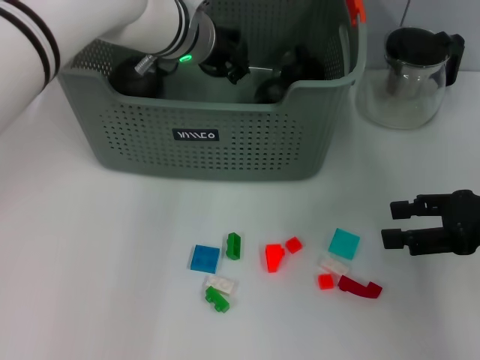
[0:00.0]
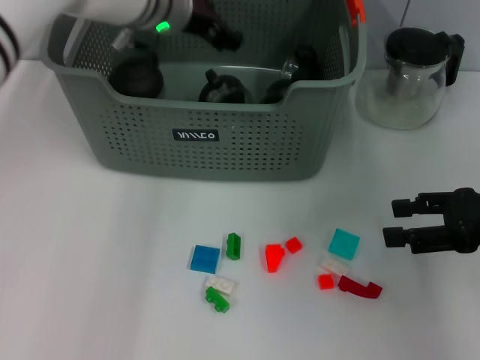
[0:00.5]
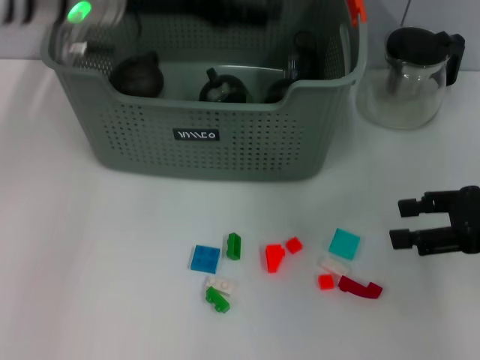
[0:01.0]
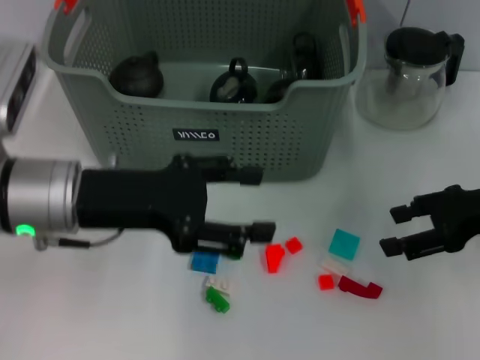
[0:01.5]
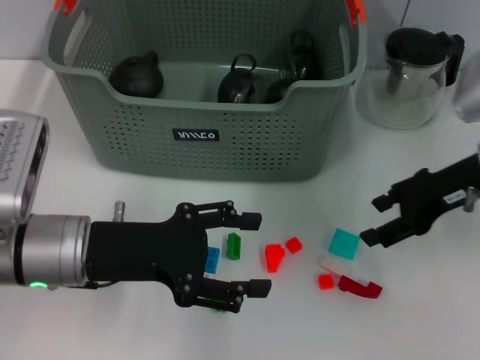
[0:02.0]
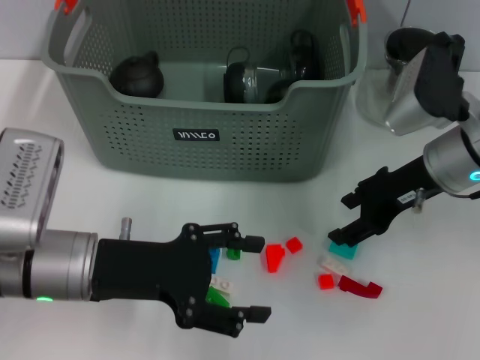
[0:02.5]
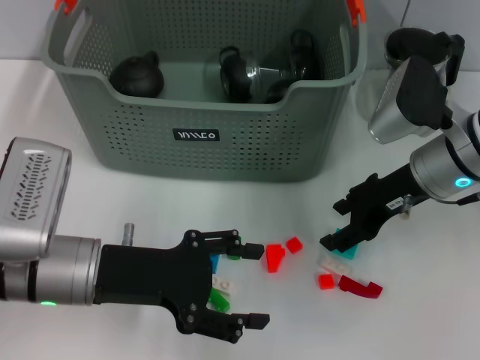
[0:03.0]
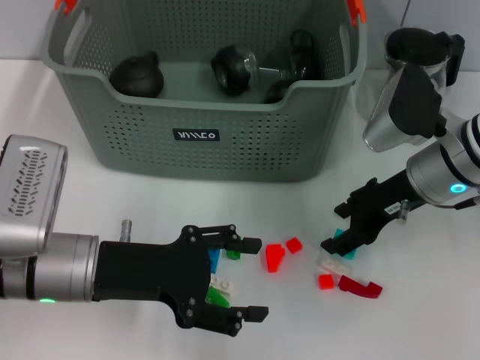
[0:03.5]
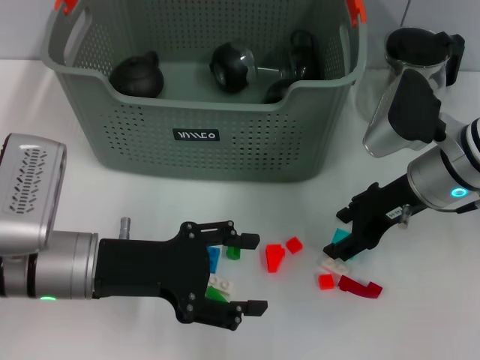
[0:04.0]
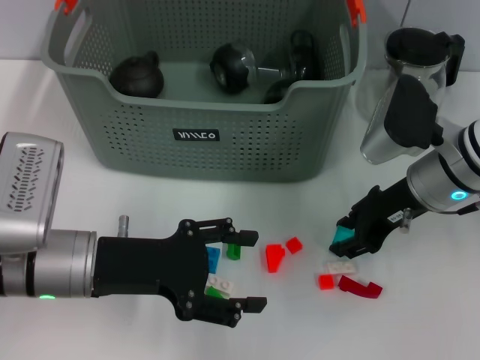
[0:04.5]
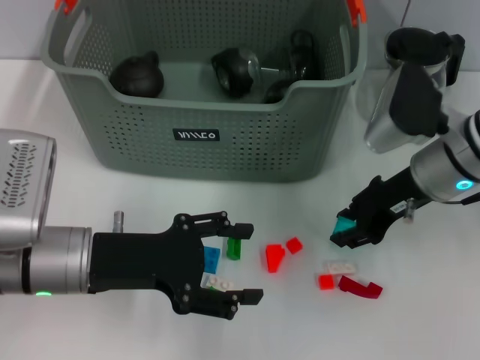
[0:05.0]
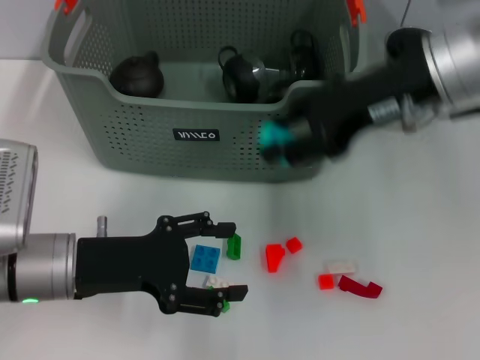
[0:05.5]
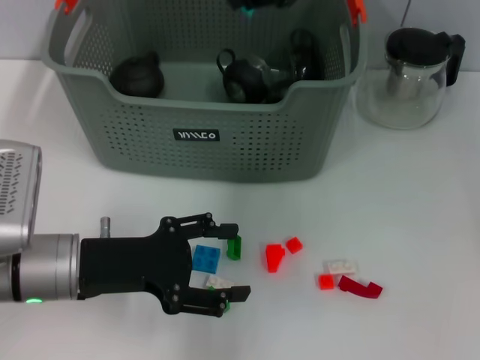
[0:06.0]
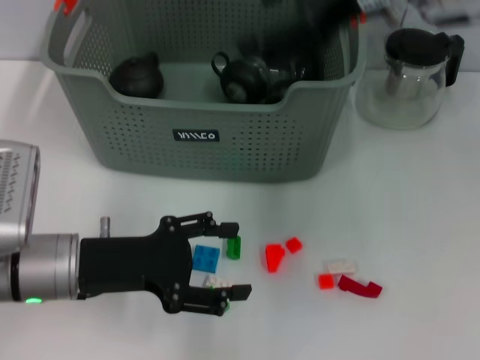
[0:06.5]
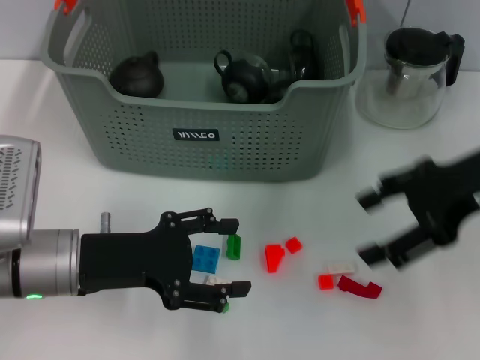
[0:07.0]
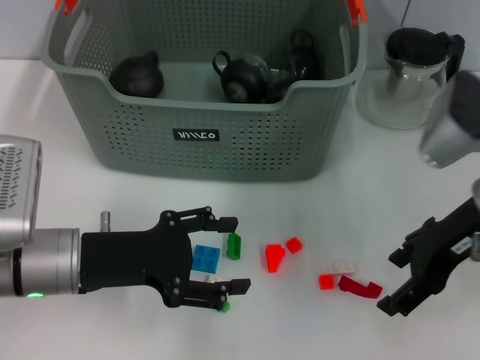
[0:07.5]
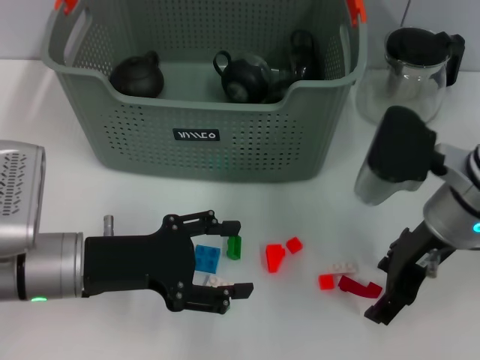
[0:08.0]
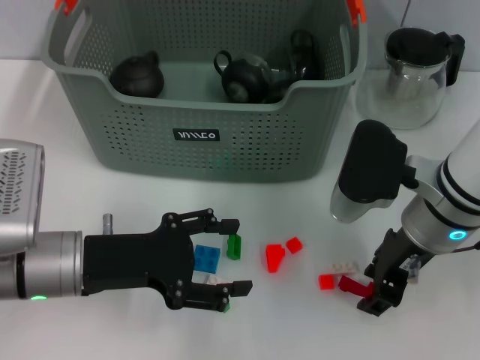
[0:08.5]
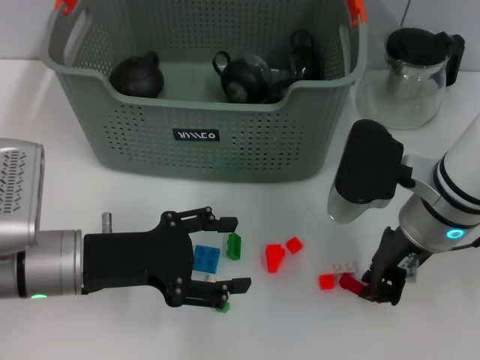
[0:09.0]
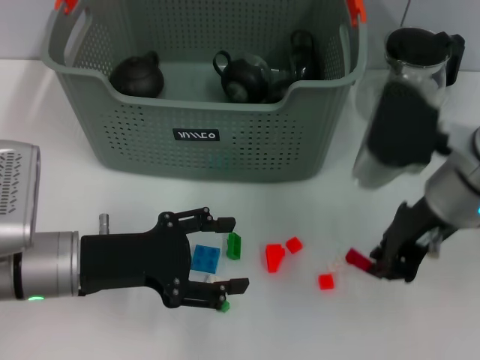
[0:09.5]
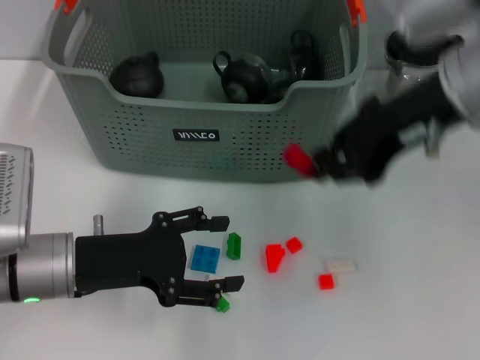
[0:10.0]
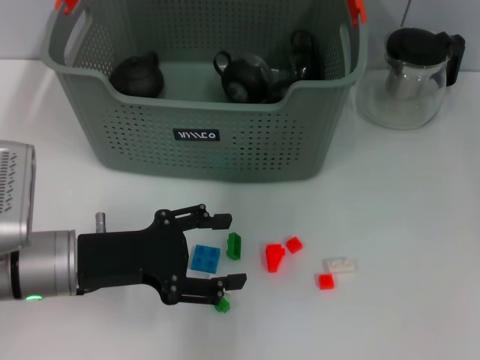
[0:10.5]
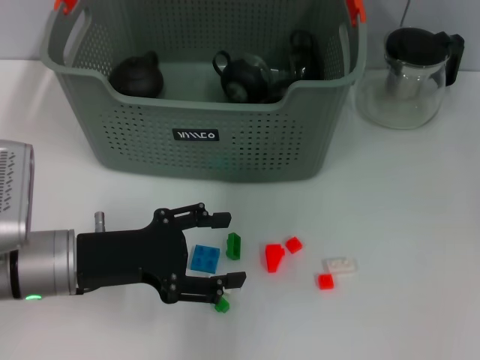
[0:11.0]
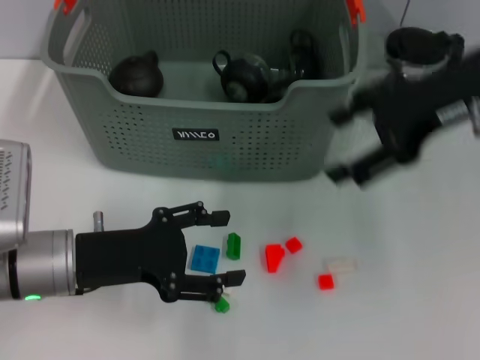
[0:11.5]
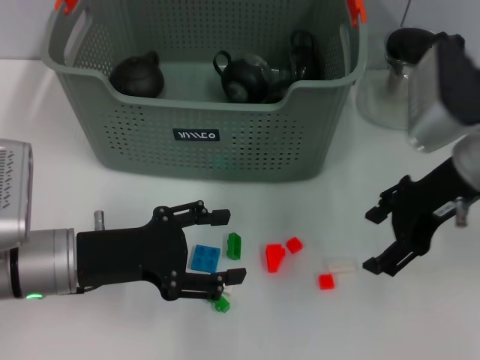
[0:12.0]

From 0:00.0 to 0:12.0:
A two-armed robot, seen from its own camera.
Task of the whole recording: pick up the teacup on the table and place it into the storage bin, pick up the block on the table and place it into the storage bin.
Step, from 0:01.0 to 0:04.5: Grasp the light blue block with right gripper.
Step, from 0:05.0 to 0:06.0: Place the light blue block in the storage box with right gripper.
Step, from 0:06.5 to 0:09.0: Grasp the red block with right gripper.
Step, from 0:09.5 to 0:10.5: Place the red block in the storage box with right gripper.
From 0:00.0 to 0:02.0: The right gripper moves forward and to the left, roughly 10 cm, while the left gripper goes roughly 25 cm backward and to the left, and opens up.
From 0:02.0 to 0:04.0: The right gripper shifts about 5 cm to the left.
From 0:04.0 to 0:06.0: The right gripper shifts some 20 cm upward, and closes its fingers.
From 0:06.0 to 0:08.0: The right gripper heads downward and backward, covering roughly 20 cm, and opens.
From 0:08.0 to 0:10.0: The right gripper shifts some 15 cm upward, and closes.
From 0:10.0 to 0:12.0: The right gripper shifts roughly 10 cm downward, and opens up.

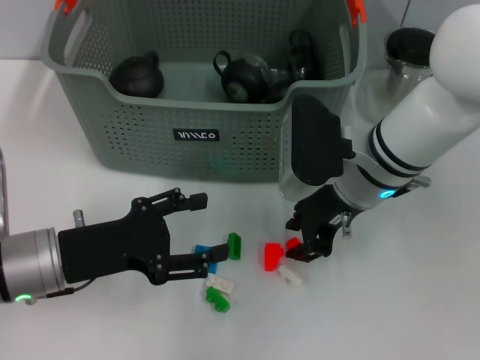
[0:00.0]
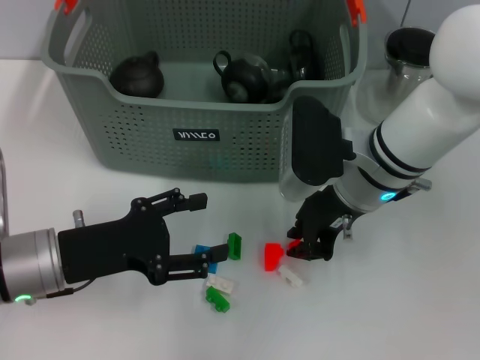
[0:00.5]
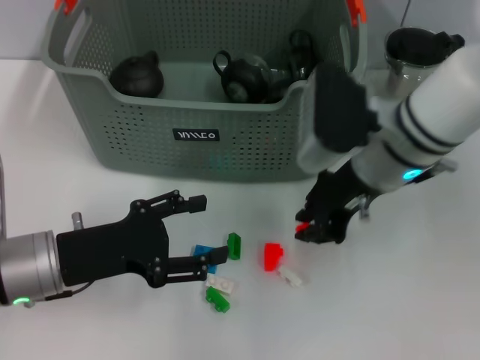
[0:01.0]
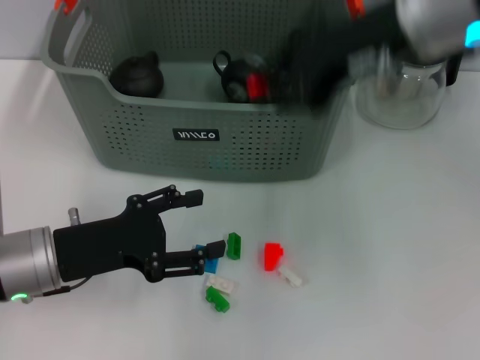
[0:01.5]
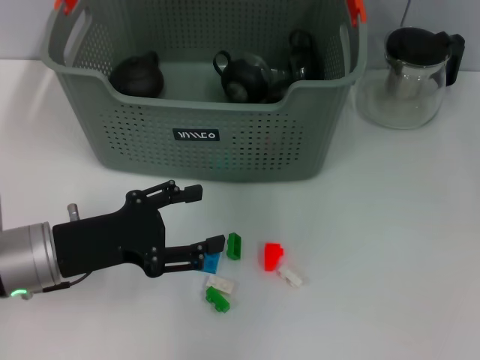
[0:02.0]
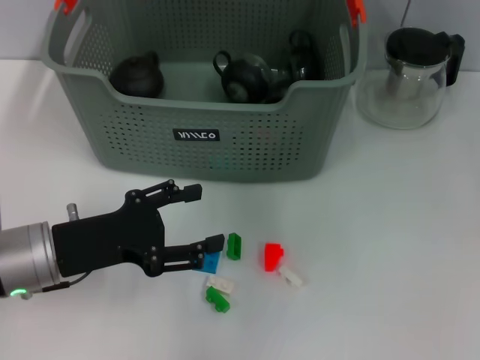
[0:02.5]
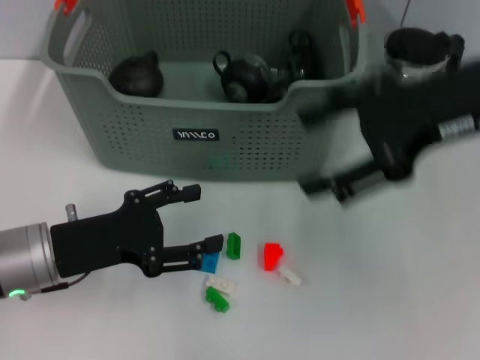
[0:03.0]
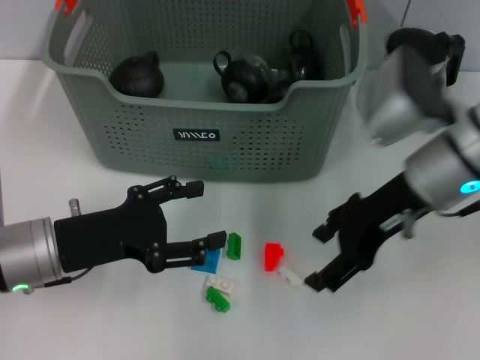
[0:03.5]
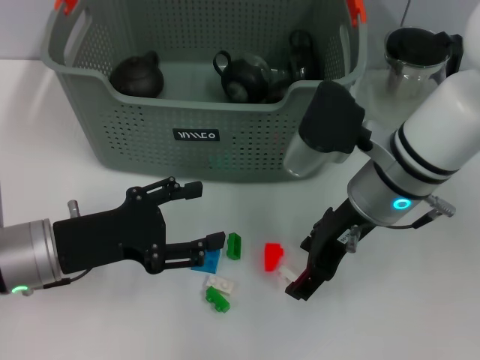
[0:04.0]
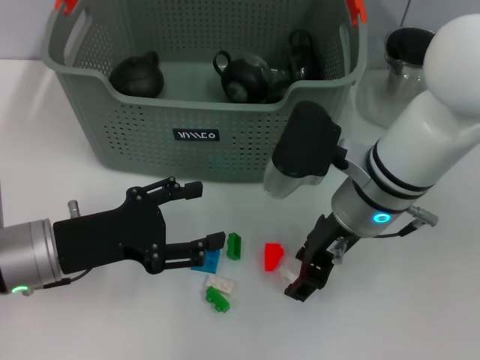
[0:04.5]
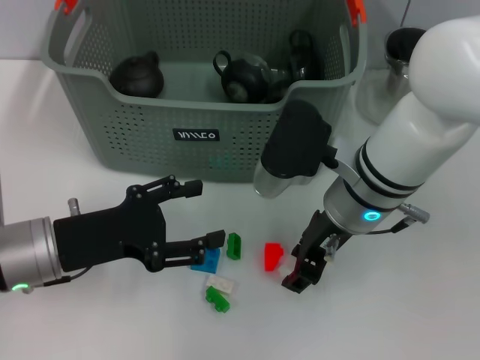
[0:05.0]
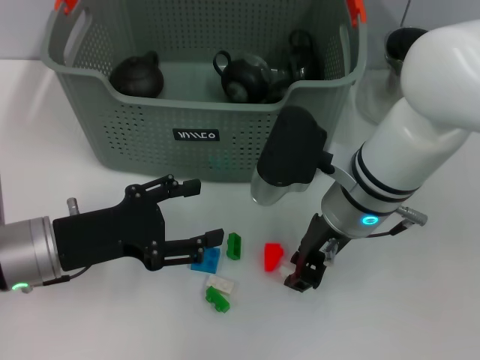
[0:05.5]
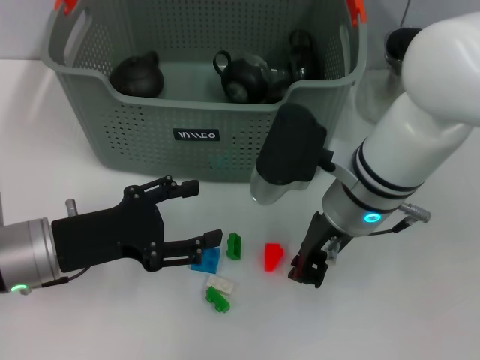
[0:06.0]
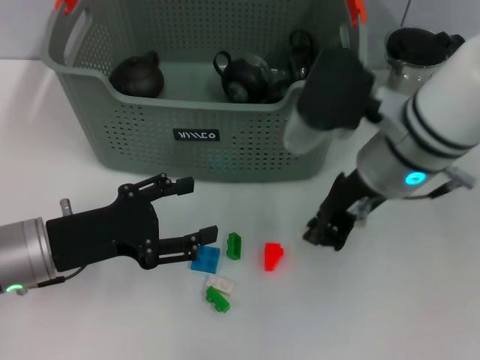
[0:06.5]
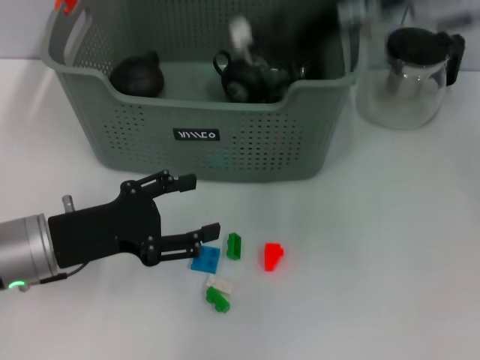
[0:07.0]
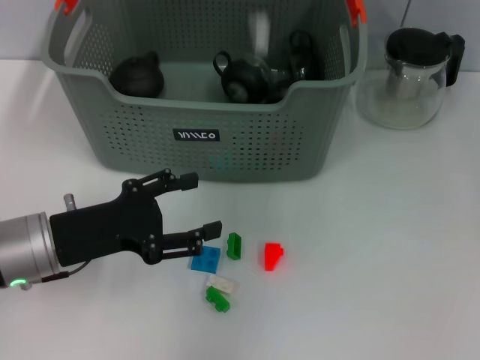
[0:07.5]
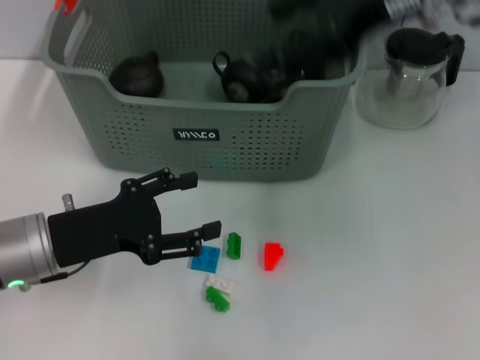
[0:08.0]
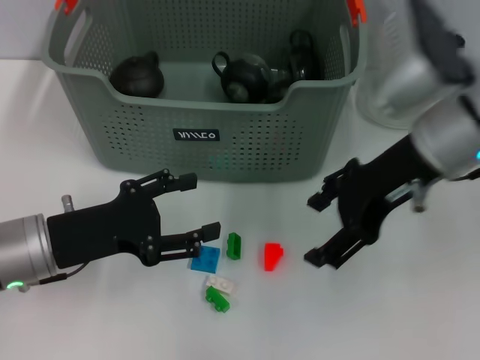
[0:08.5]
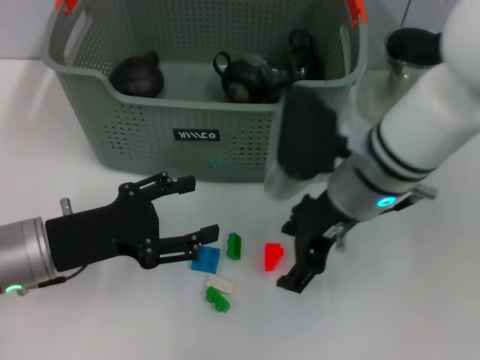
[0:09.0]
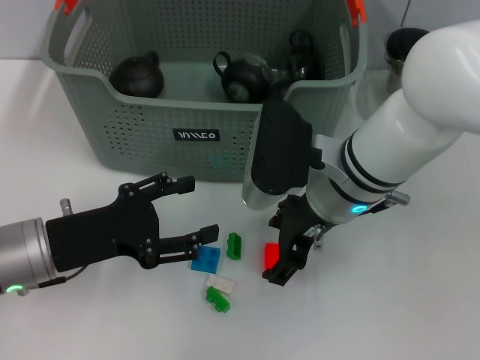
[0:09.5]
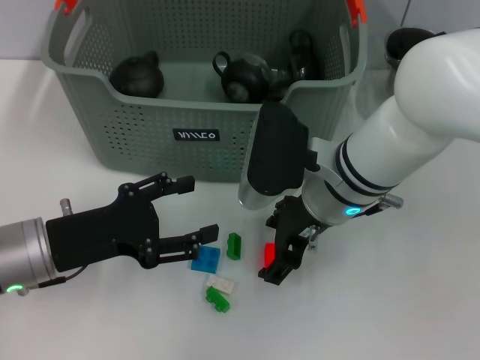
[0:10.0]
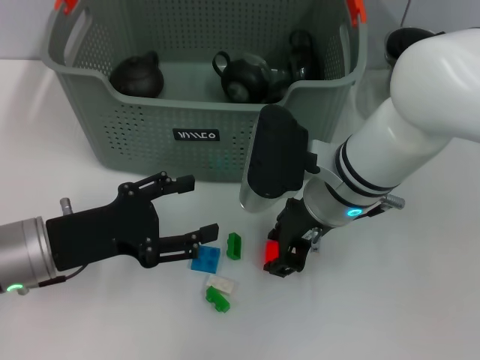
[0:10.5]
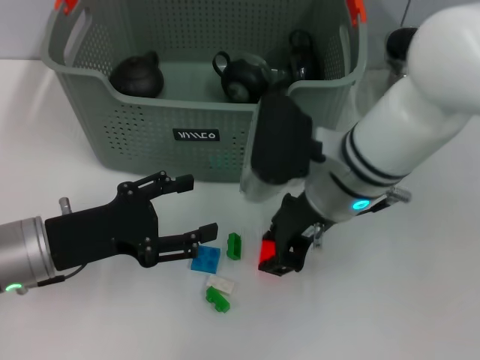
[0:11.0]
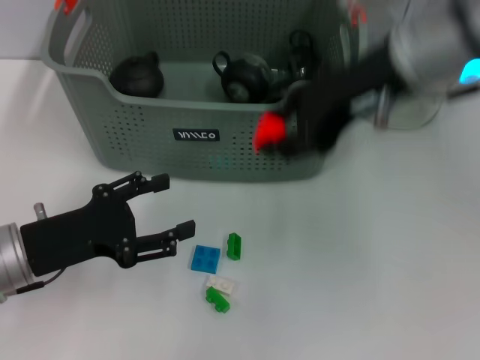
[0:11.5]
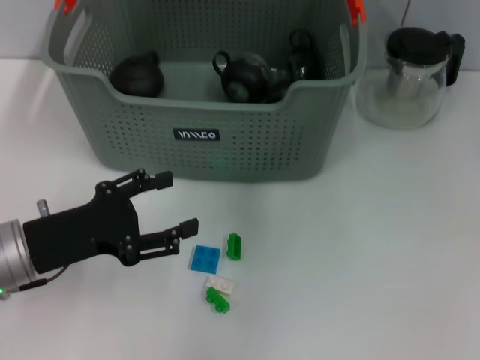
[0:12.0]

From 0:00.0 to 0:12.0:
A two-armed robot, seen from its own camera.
Task of the whole recording: pick up the teacup on the table and place it into the storage bin, pick up the block on the table and place it into the storage bin.
Step, from 0:00.5 to 0:02.0: Place the orange block in the storage box with right gripper.
Step, from 0:02.5 to 0:05.5: Grasp the white block with right gripper.
Step, from 0:06.0 to 0:07.5: Place the white block in the storage box with right gripper.
Step, from 0:08.0 to 0:10.5: Grasp the orange block with right gripper.
From 0:00.0 to 0:02.0: The right gripper travels upward by roughly 20 cm.
From 0:02.0 to 0:04.0: The right gripper moves downward and backward, some 20 cm, and opens its fingers.
From 0:04.0 to 0:06.0: The right gripper closes.
From 0:06.0 to 0:08.0: The right gripper travels upward and to the right by about 20 cm, and opens.
From 0:08.0 to 0:10.0: The right gripper shifts some 20 cm downward and to the left.
From 0:10.0 to 0:12.0: The right gripper travels upward by approximately 20 cm, and closes its fingers.

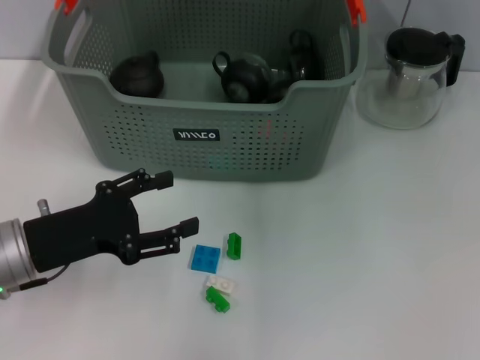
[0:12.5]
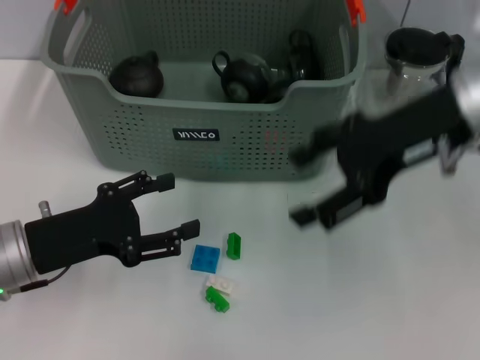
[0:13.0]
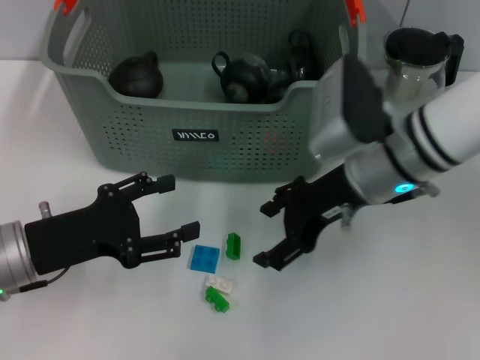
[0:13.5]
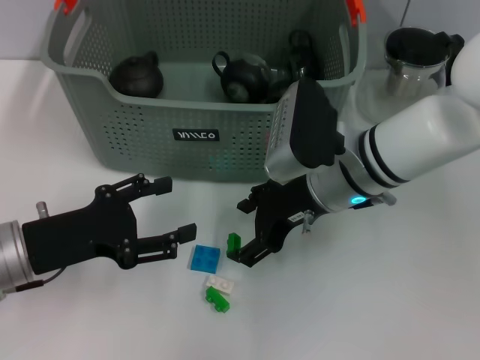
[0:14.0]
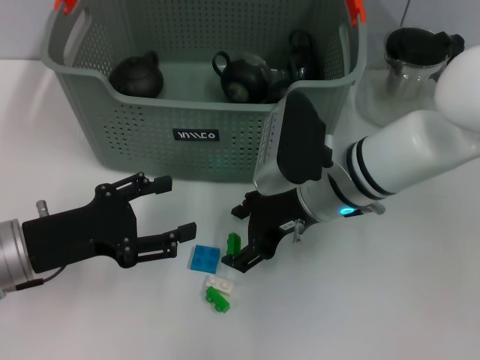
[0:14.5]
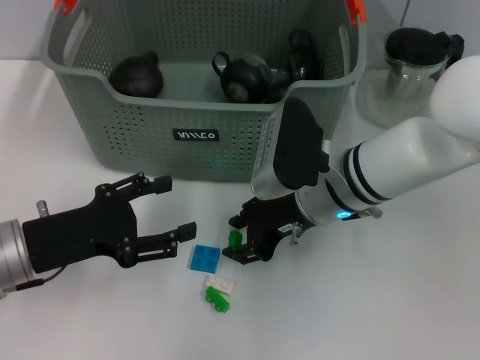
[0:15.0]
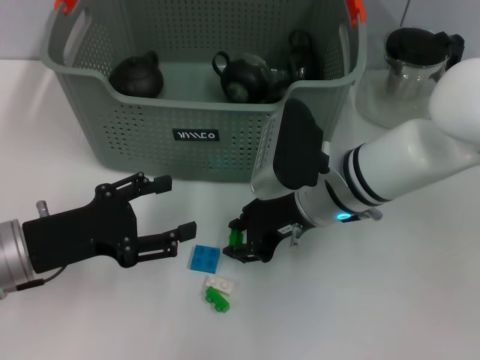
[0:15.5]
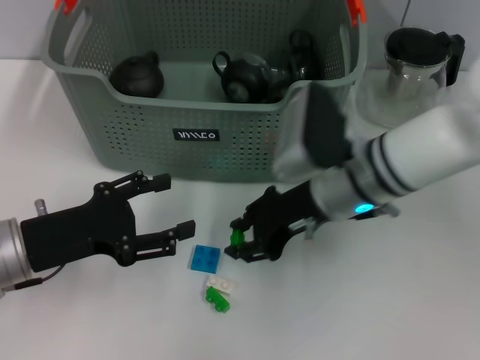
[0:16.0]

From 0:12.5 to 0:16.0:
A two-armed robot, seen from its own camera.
Task of the whole recording: pick up the teacup on the table and place it into the storage bin, pick up the block on the table and place it into the storage bin.
Step, from 0:12.5 to 0:15.5: Grasp the green block with right gripper.
From 0:12.5 to 0:14.5: The right gripper heads downward, covering some 25 cm.
From 0:14.5 to 0:16.0: The right gripper closes up.
